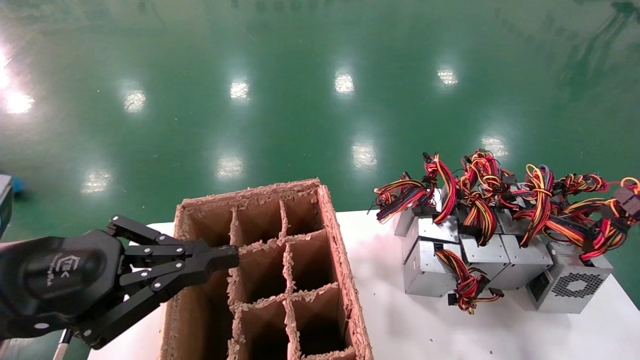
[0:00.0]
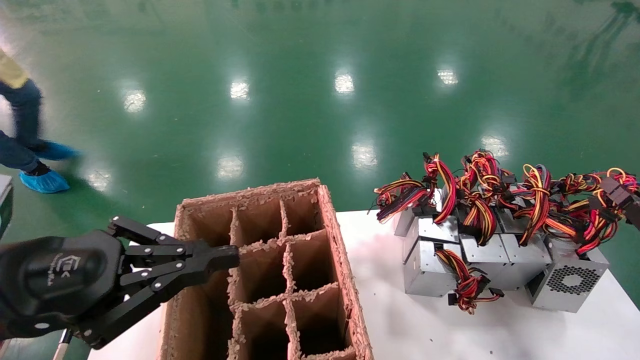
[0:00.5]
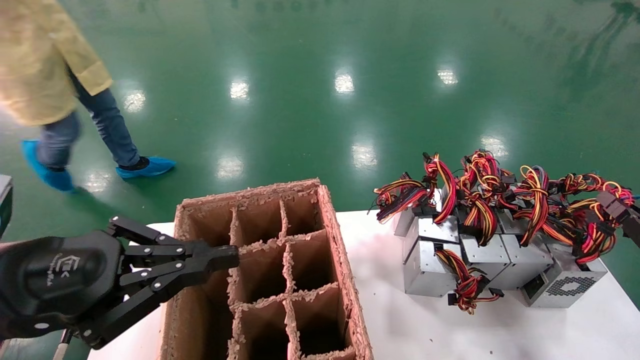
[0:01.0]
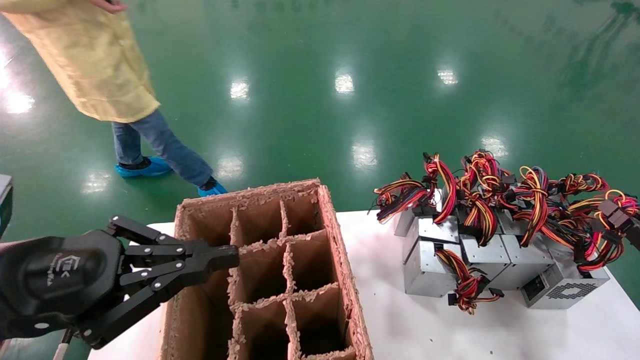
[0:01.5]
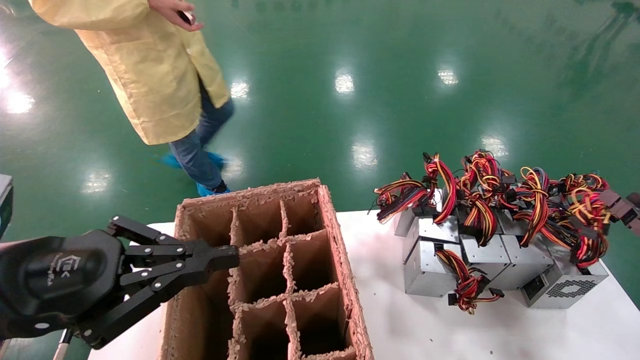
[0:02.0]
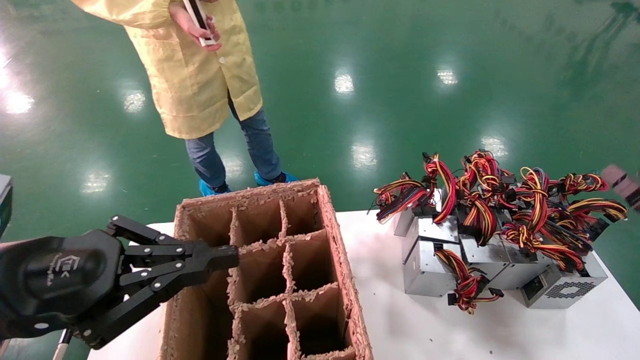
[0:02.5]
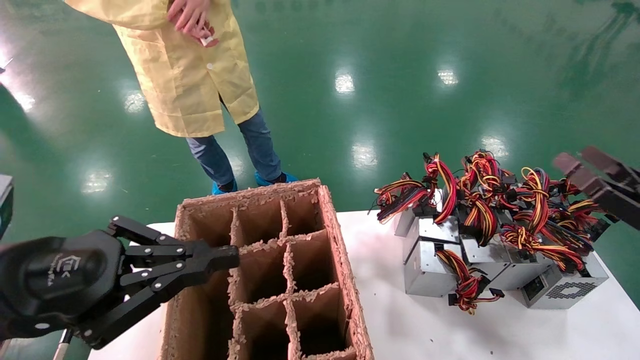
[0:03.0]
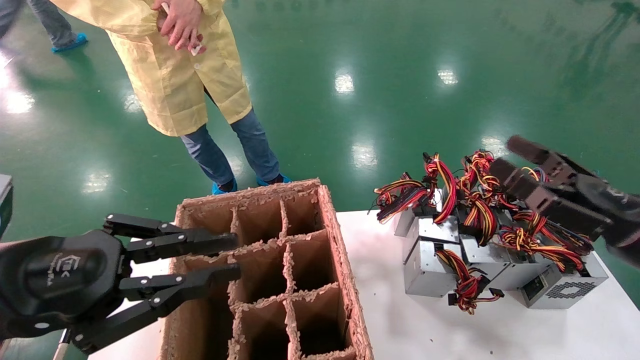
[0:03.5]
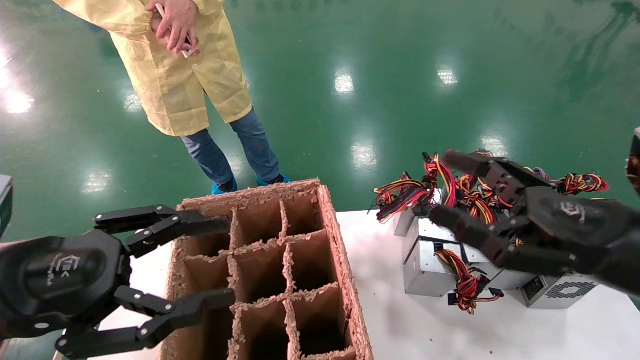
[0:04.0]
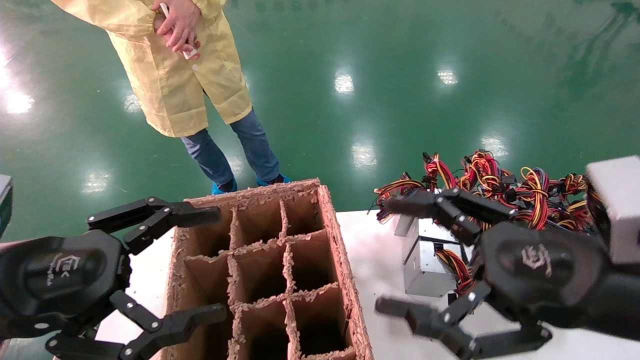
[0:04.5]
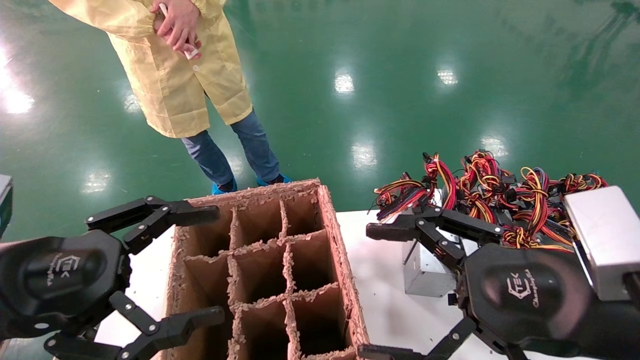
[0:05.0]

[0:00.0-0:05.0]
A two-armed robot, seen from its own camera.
Step, 0:00.0 to 0:02.0: Place the main unit power supply in the designated area.
0:00.0 to 0:02.5: The right gripper opens its fingers.
0:02.5 to 0:05.0: The right gripper moves to the left, some 25 cm. Meanwhile the left gripper opens its fingers.
